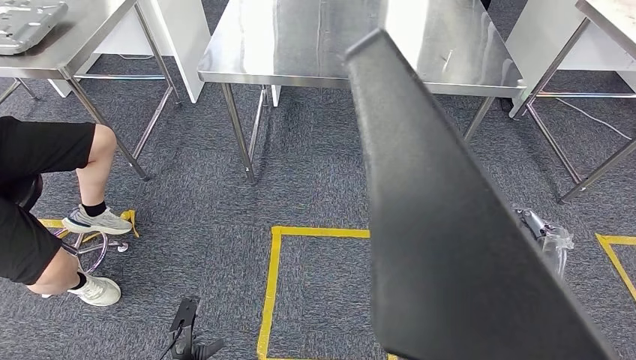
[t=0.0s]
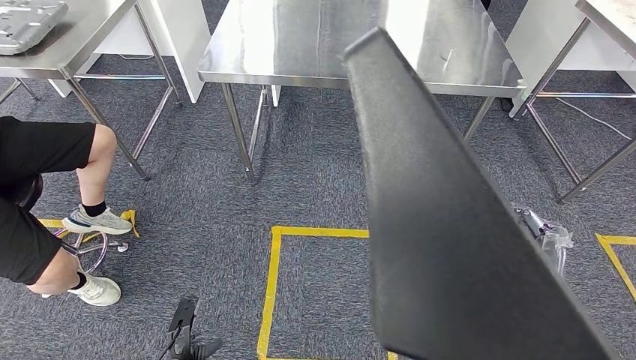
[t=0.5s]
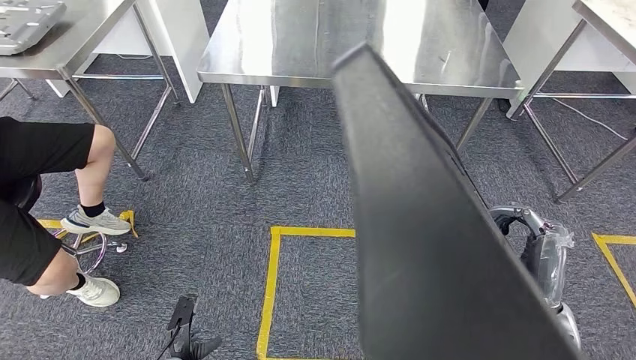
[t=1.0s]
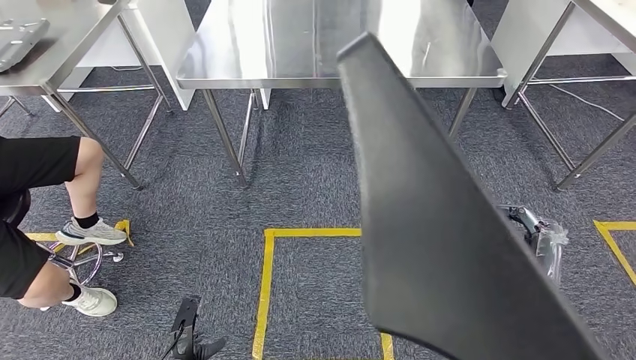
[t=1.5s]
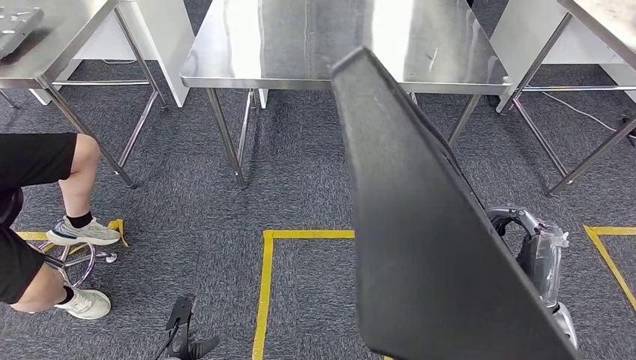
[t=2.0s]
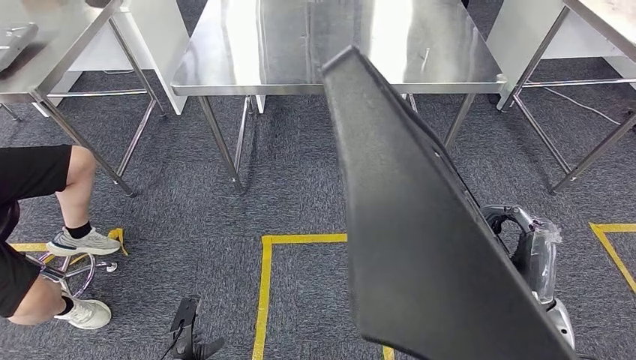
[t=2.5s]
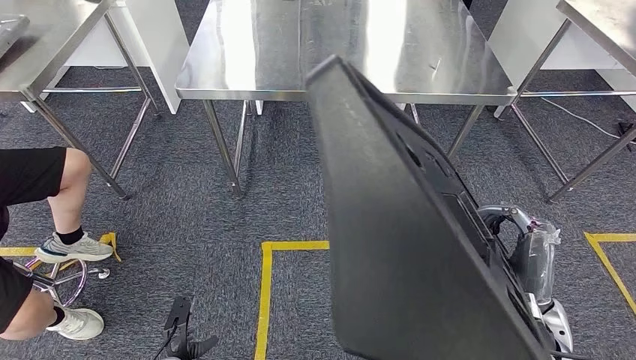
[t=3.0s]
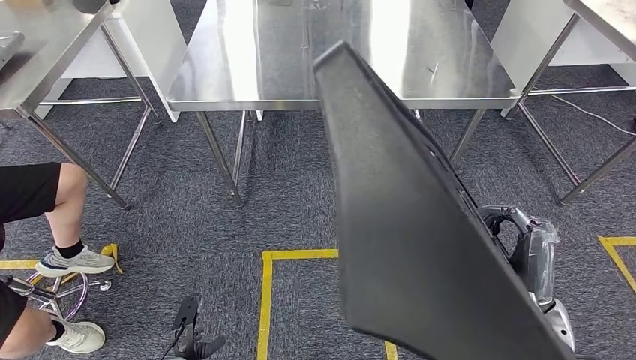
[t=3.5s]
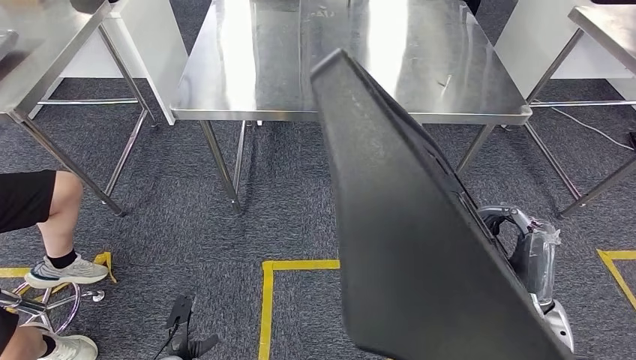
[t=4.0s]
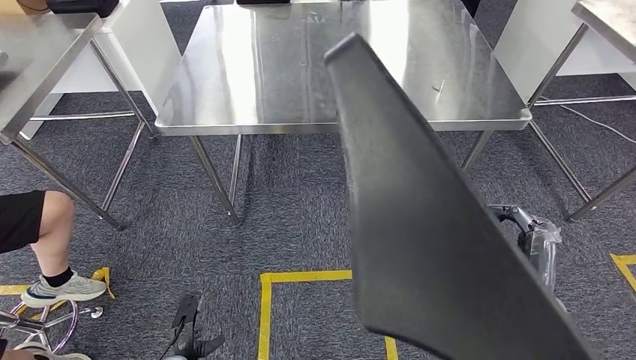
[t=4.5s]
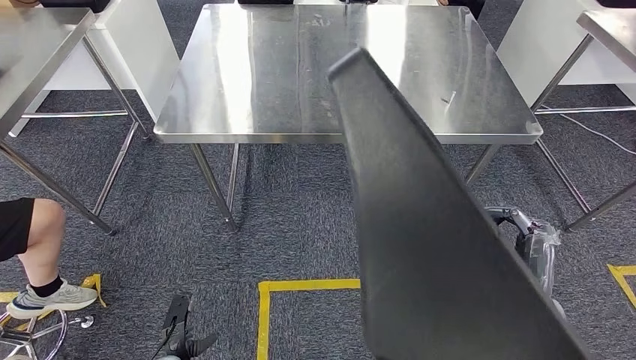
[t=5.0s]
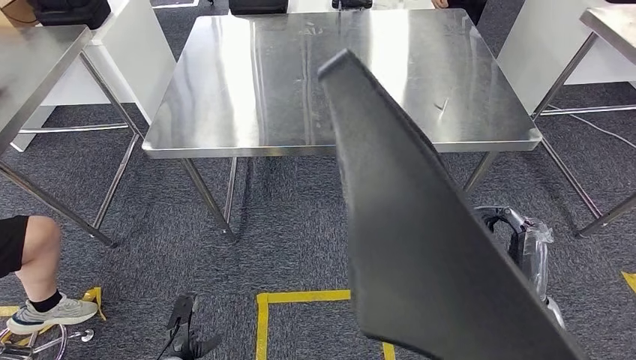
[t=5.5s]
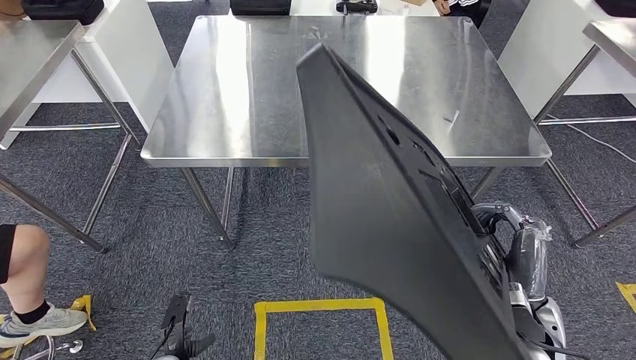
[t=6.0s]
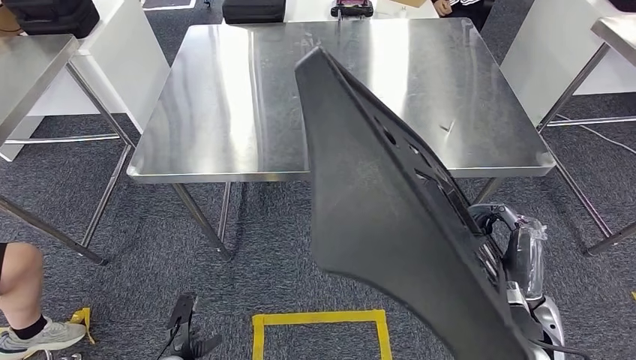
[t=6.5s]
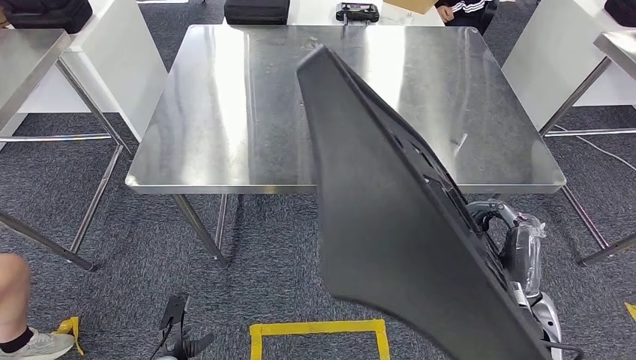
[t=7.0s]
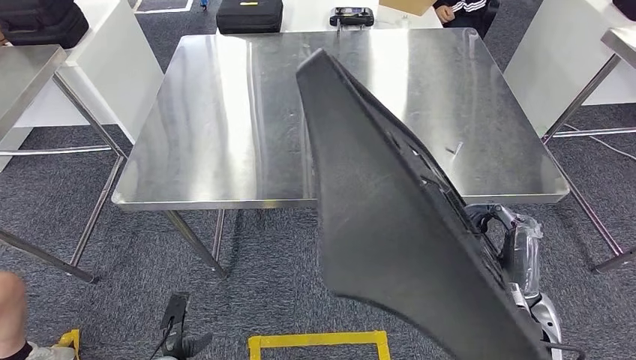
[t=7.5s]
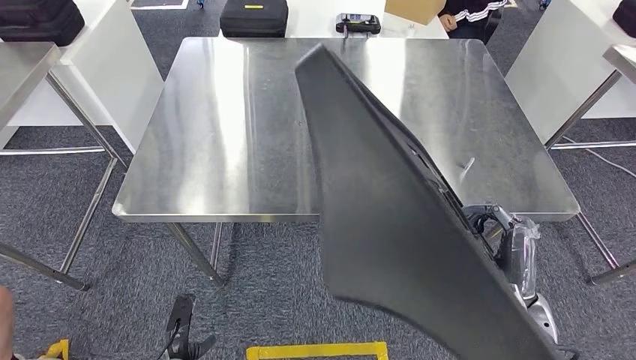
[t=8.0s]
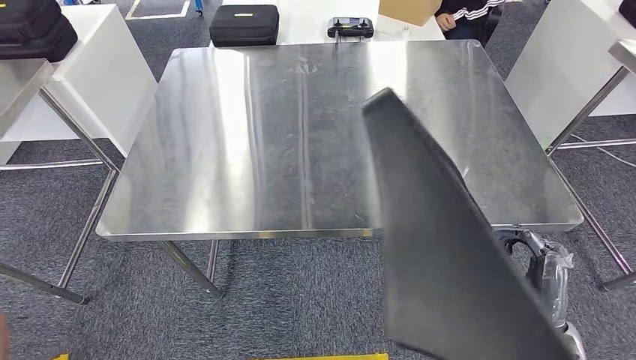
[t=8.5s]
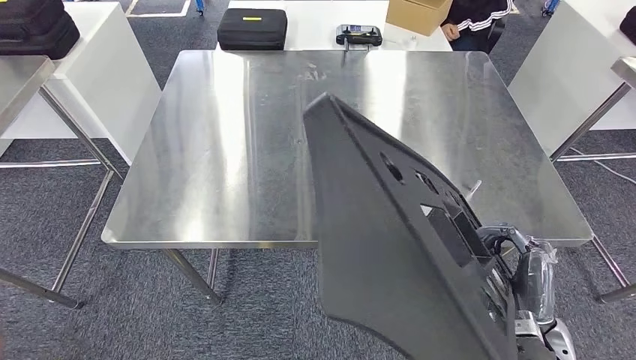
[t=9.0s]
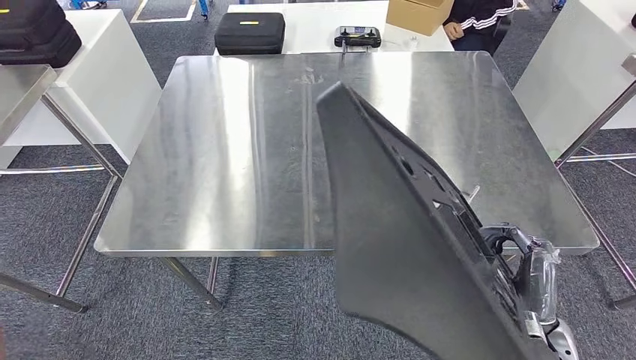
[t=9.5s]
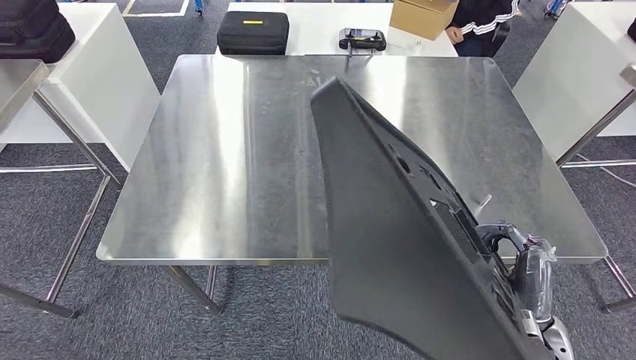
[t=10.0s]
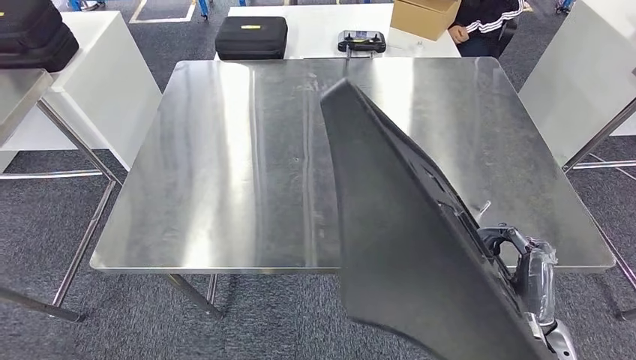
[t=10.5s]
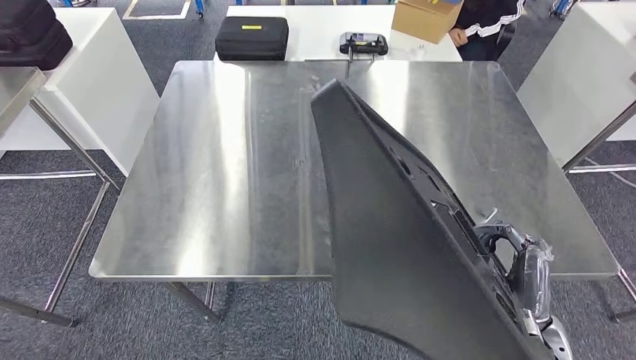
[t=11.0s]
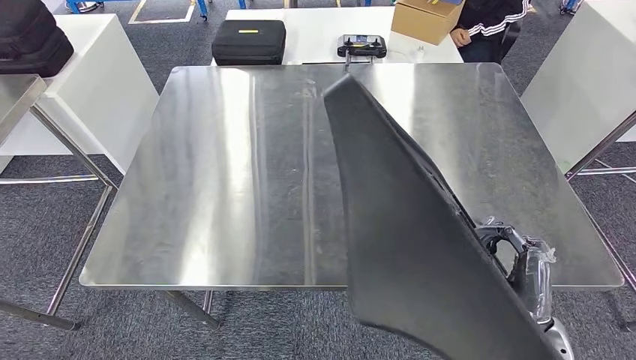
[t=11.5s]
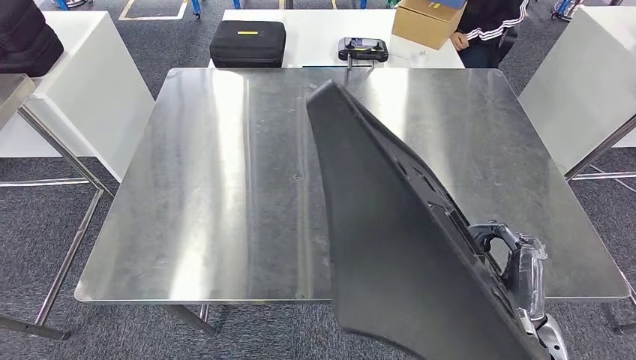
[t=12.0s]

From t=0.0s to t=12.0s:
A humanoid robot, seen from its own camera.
Step, from t=0.0s to t=4.0s: Move the large material to the workbench.

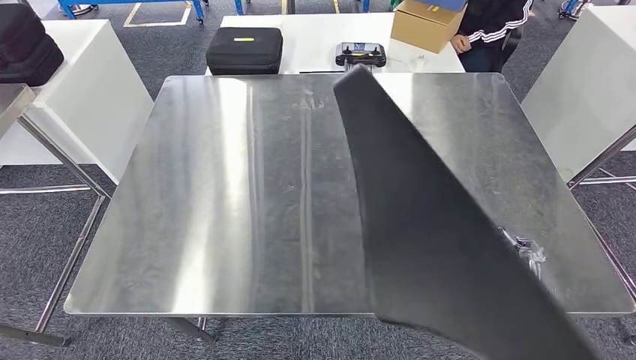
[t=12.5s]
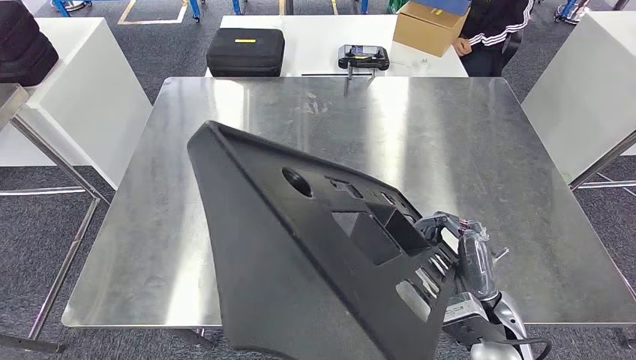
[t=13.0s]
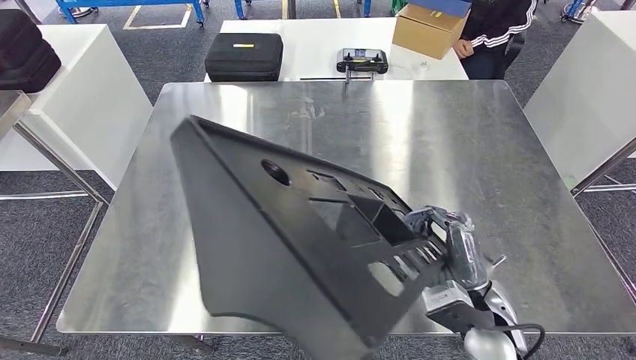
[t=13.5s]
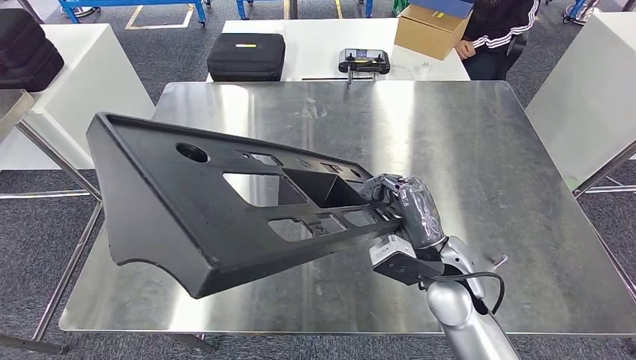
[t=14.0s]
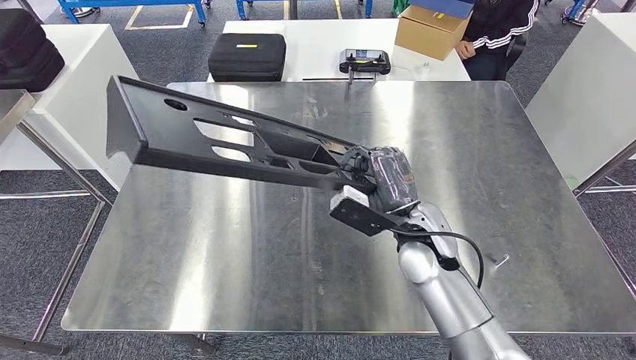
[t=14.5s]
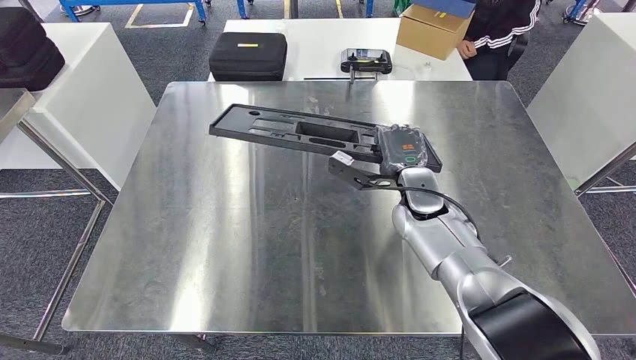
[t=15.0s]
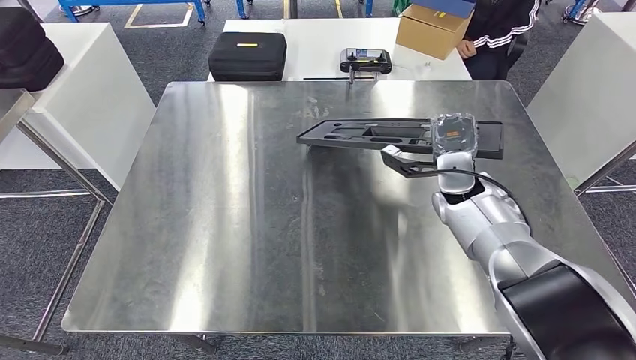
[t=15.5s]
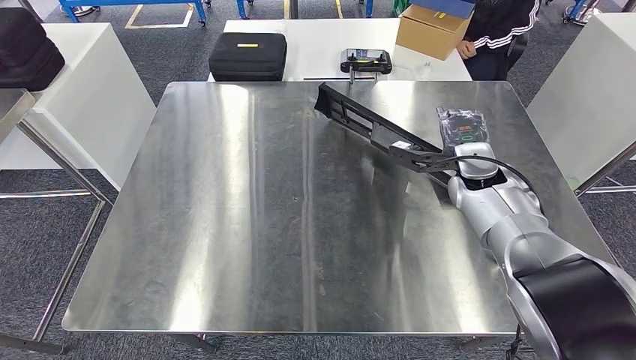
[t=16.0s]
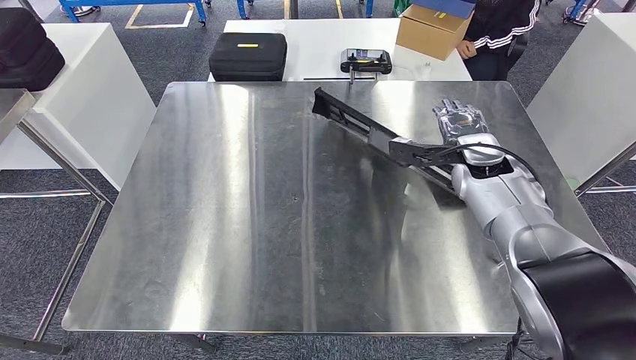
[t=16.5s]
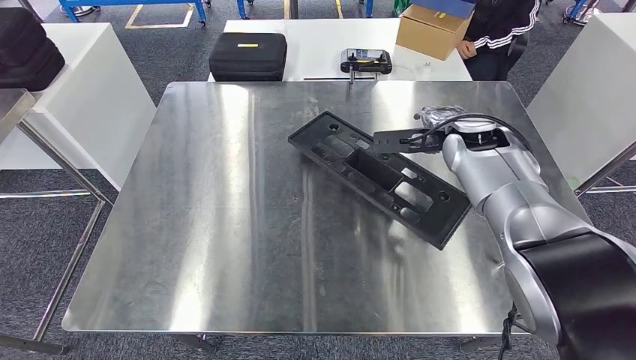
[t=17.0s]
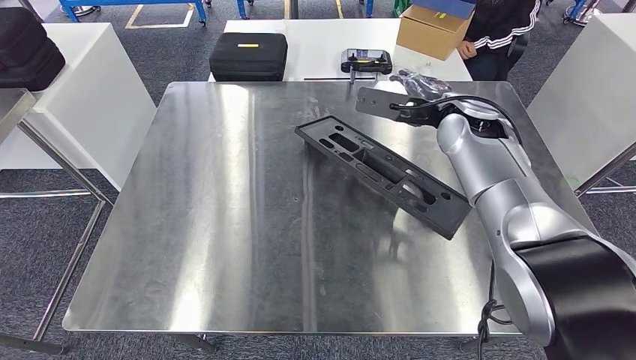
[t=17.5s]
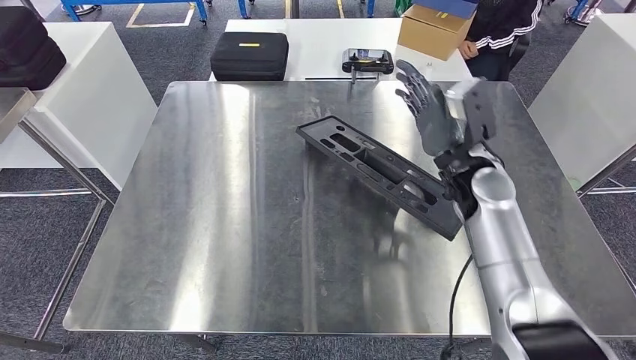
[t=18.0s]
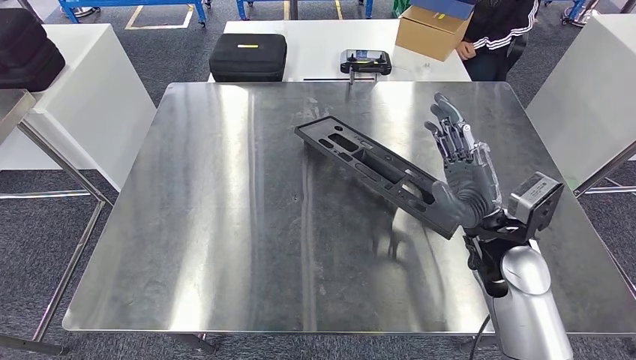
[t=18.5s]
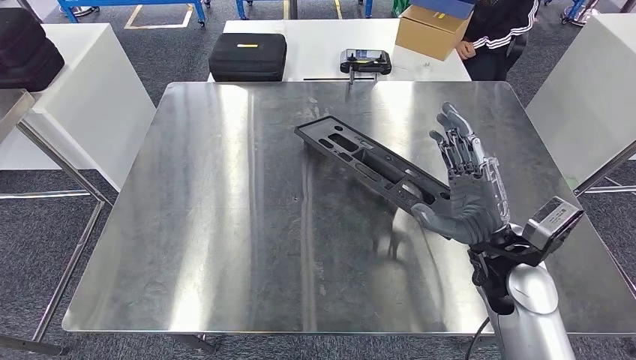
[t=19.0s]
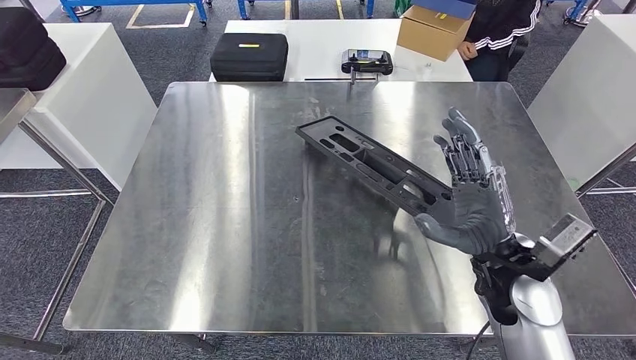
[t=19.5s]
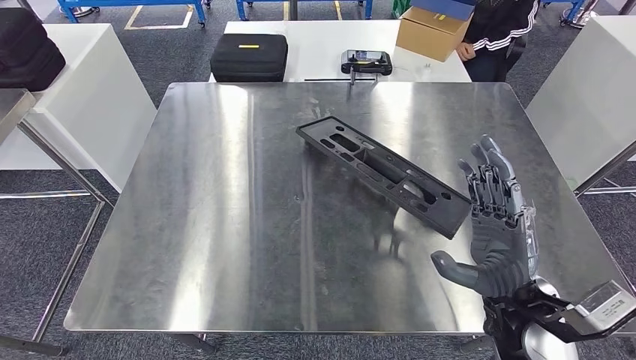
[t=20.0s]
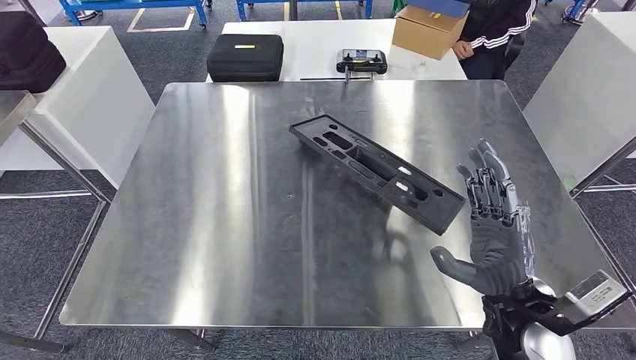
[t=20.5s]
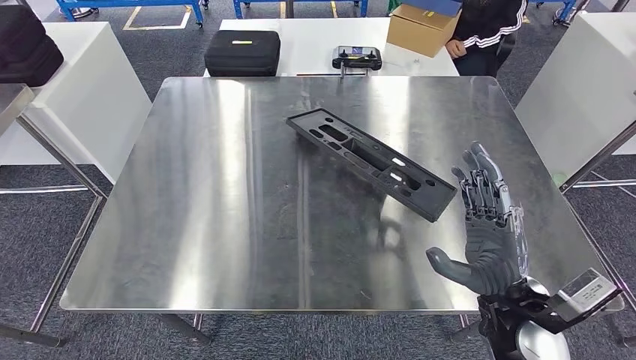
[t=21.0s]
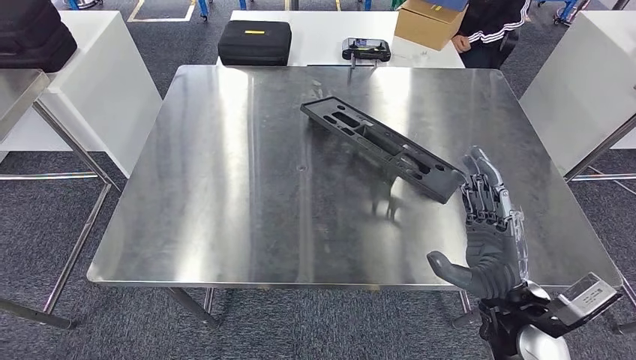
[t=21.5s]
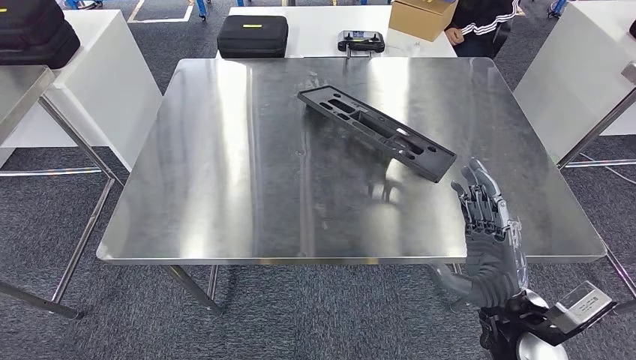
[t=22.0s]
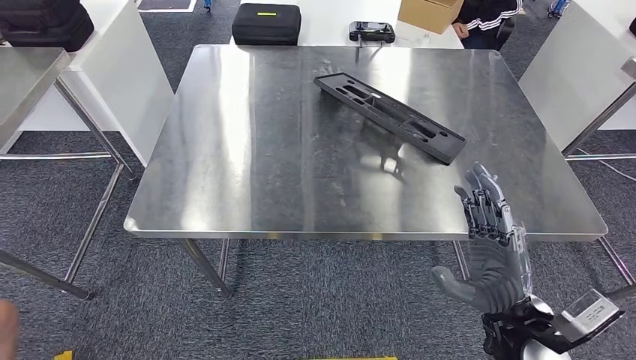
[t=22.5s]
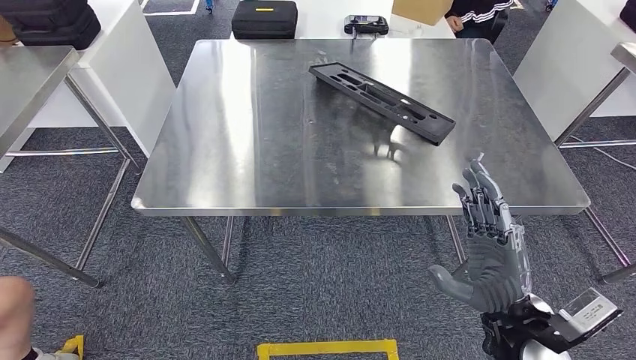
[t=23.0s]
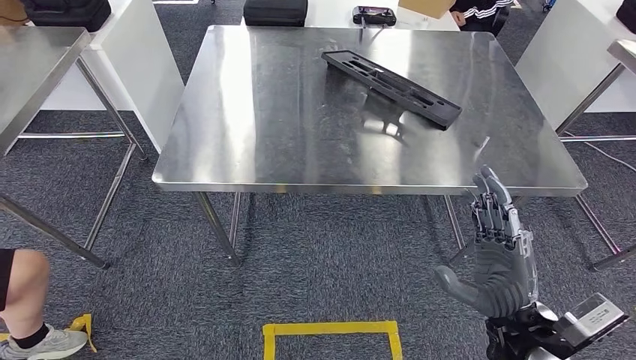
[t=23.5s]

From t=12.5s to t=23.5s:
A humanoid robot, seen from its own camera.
From t=16.0s to t=18.0s: The right hand moves roughly 10 cm upward and comes back.
From t=18.0s to t=20.0s: The right hand moves backward, some 20 cm.
